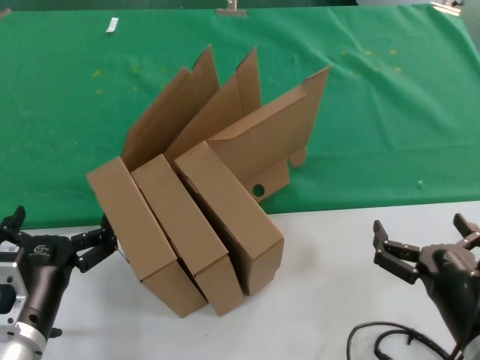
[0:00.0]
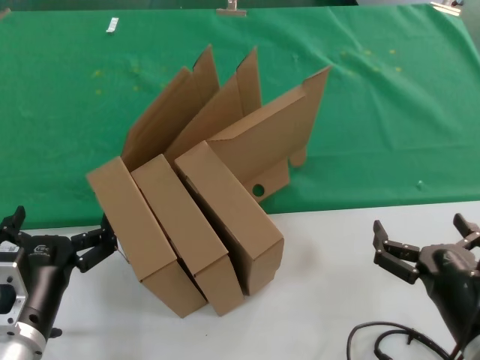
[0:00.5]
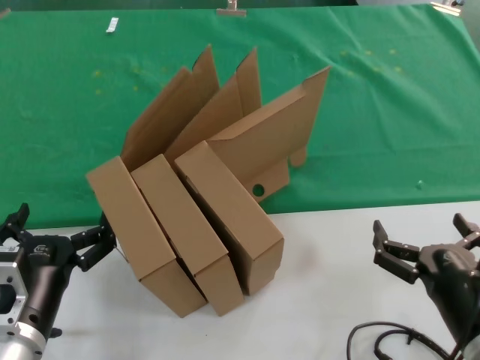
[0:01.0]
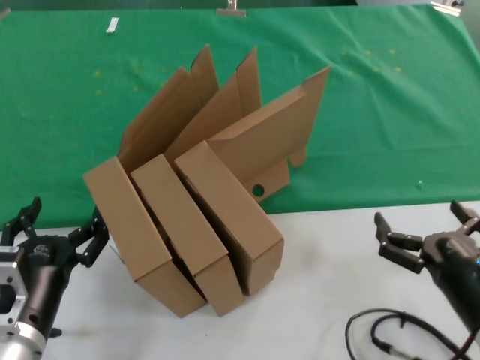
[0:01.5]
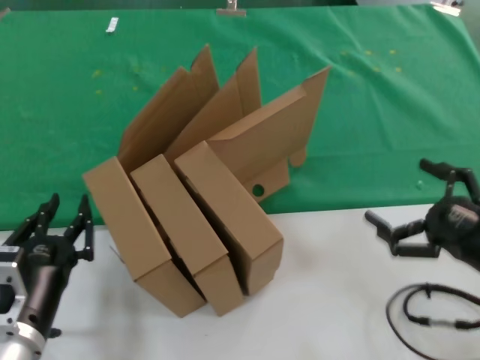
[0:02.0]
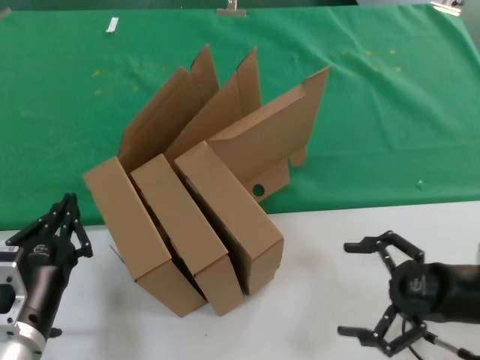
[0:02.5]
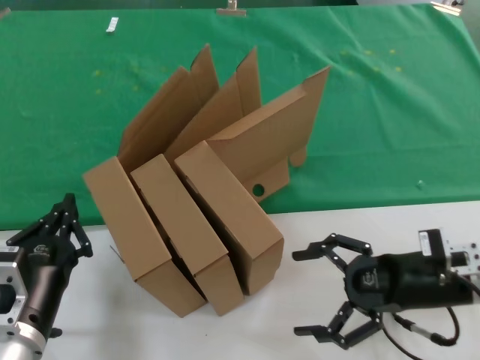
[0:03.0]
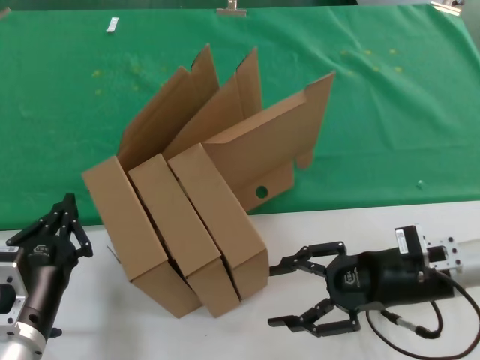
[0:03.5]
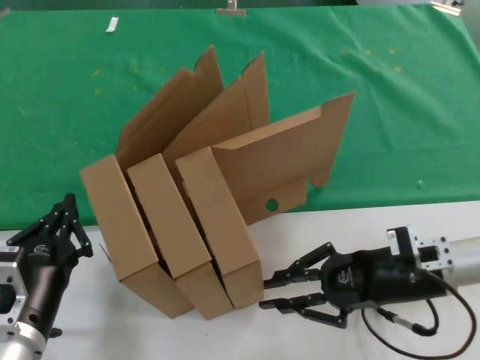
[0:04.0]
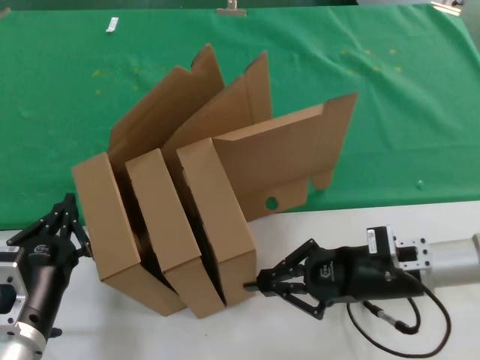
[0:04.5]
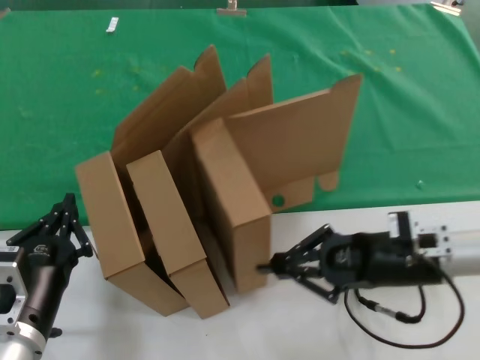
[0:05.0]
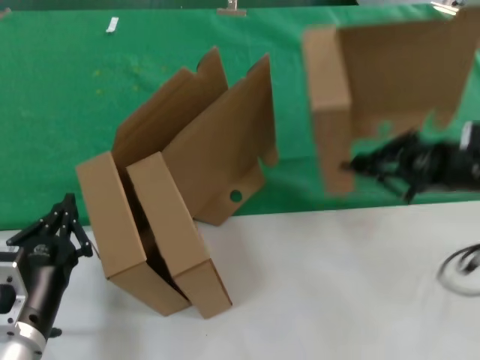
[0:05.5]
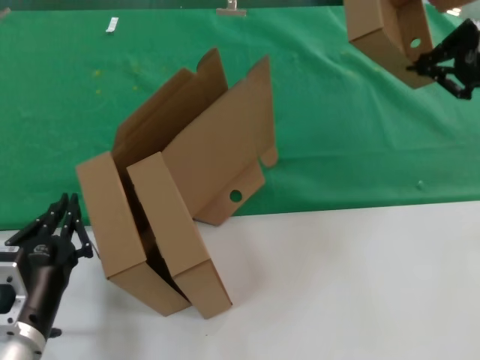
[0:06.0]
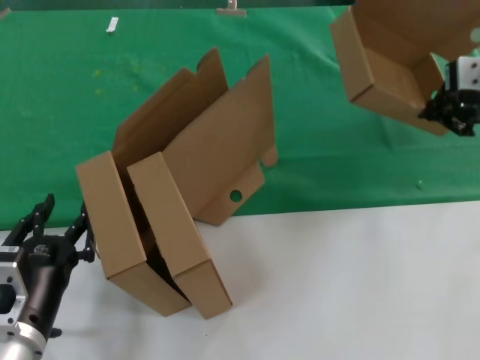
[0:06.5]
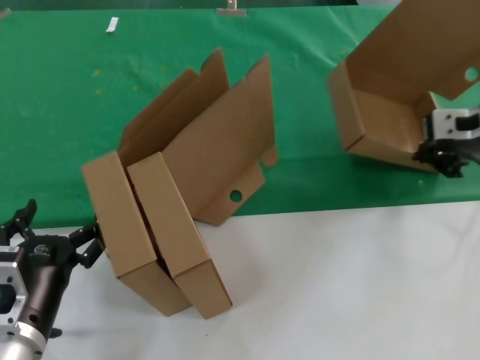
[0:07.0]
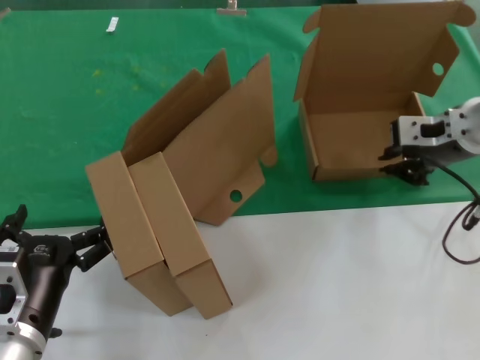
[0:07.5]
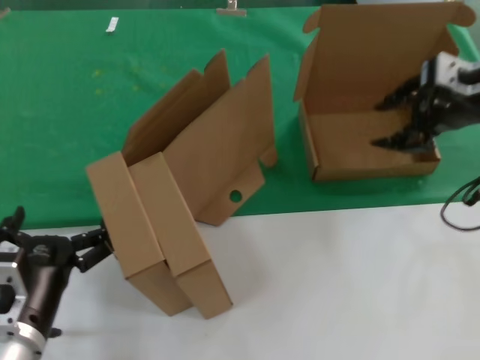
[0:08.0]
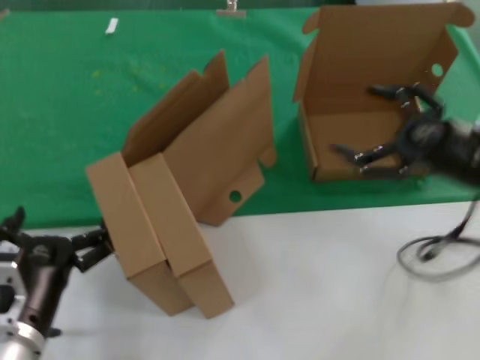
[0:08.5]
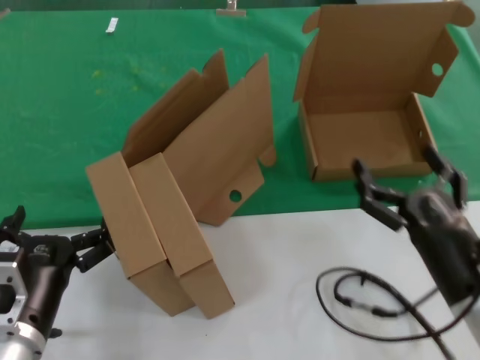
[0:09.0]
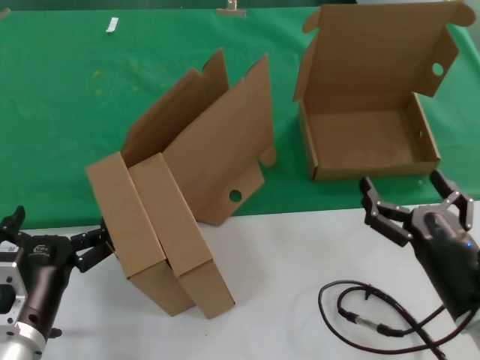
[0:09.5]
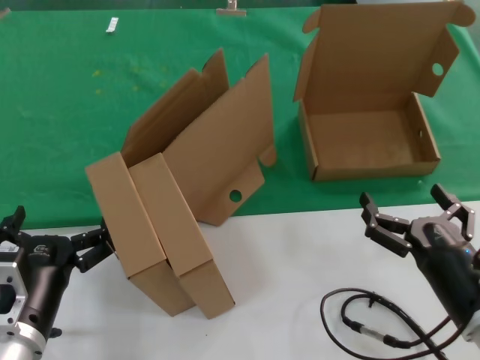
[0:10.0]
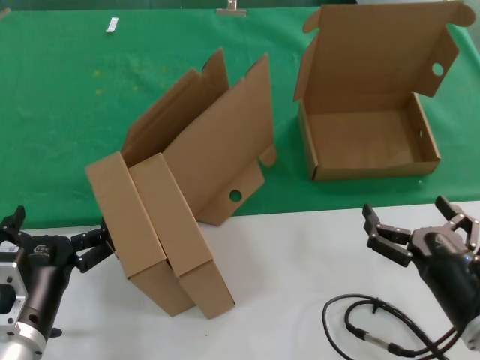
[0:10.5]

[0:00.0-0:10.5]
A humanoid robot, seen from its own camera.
Task of the whole recording: pick up the paper box and put it at the back.
Step, 0:00.0 to 0:04.0: Grasp the paper box.
Step, 0:04.5 to 0:07.5: Place the paper box on the table.
0:00.0 to 0:02.0: The right hand travels to the right and forward by some 15 cm.
0:02.0 to 0:04.0: The right hand shifts some 10 cm forward and to the left.
0:04.0 to 0:06.5: The right hand moves upward, roughly 25 cm.
0:06.5 to 0:08.5: The right hand moves up and down over some 15 cm, changing direction 2 times.
0:08.5 to 0:10.5: The right hand is displaced downward, backward and to the left by some 25 cm.
